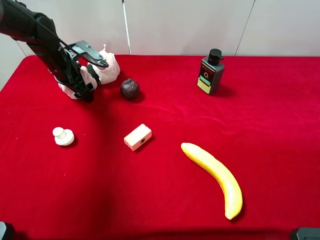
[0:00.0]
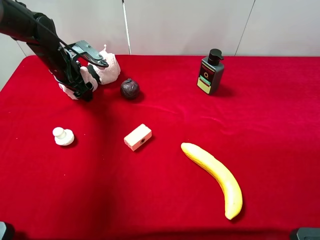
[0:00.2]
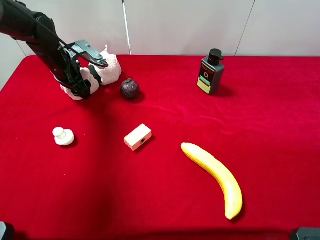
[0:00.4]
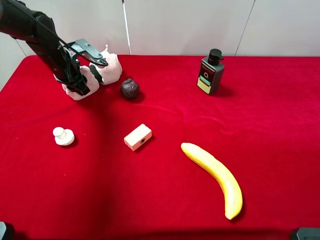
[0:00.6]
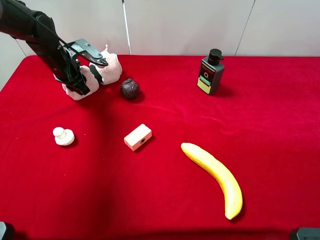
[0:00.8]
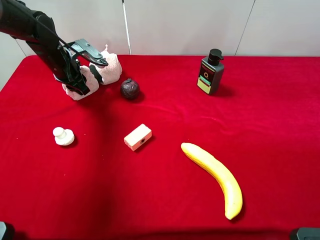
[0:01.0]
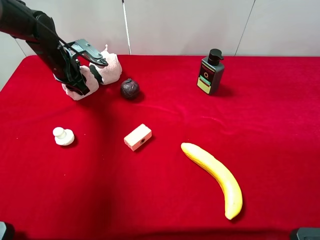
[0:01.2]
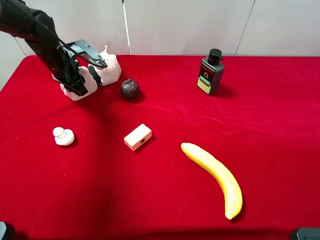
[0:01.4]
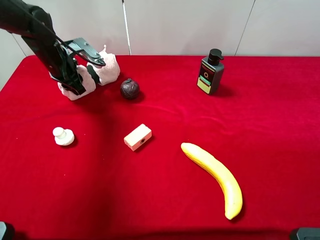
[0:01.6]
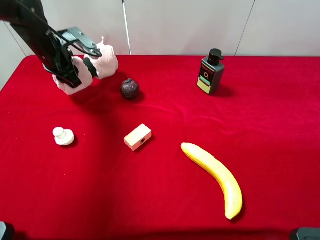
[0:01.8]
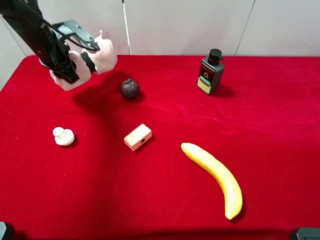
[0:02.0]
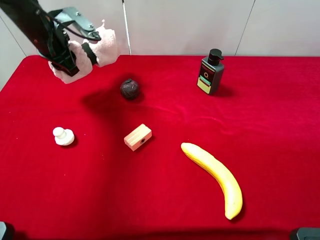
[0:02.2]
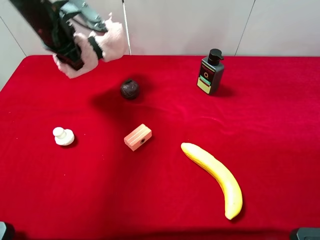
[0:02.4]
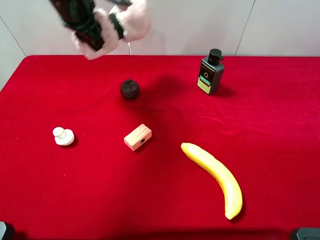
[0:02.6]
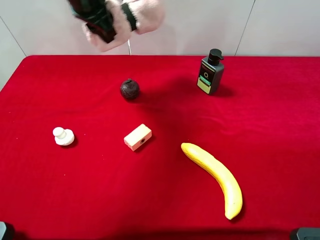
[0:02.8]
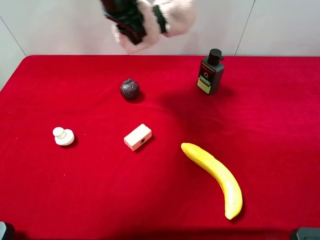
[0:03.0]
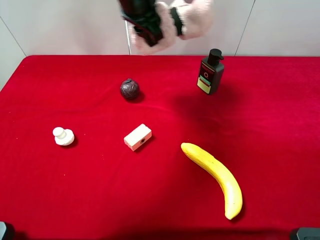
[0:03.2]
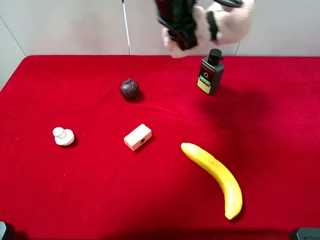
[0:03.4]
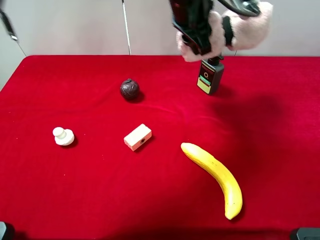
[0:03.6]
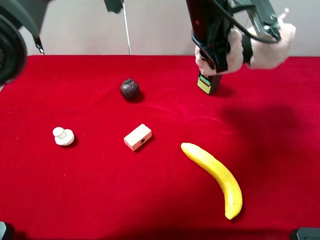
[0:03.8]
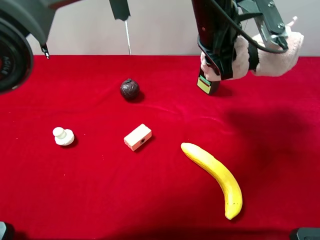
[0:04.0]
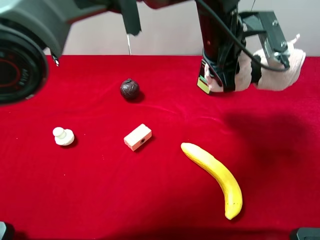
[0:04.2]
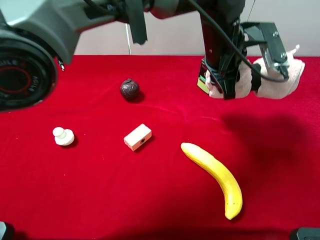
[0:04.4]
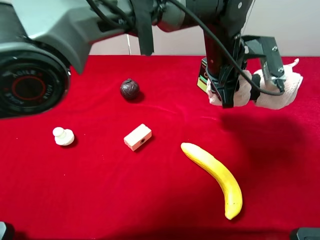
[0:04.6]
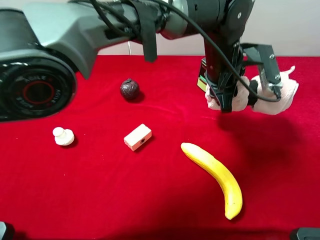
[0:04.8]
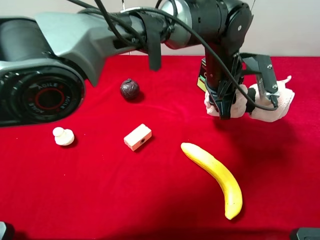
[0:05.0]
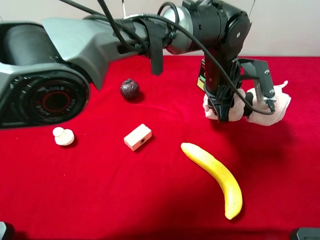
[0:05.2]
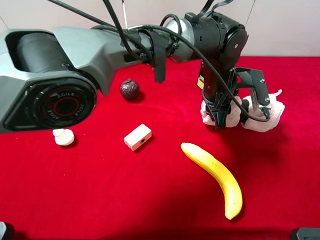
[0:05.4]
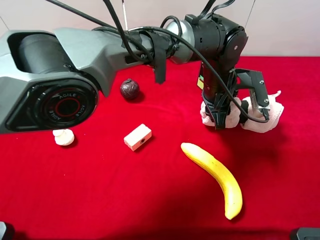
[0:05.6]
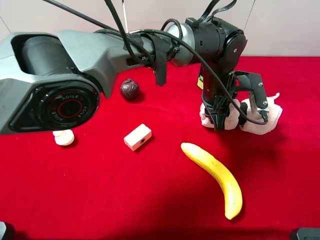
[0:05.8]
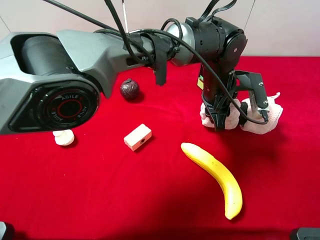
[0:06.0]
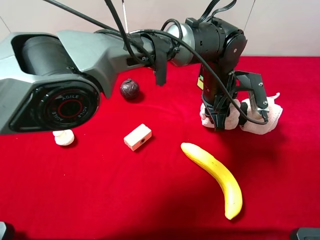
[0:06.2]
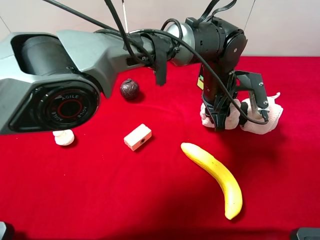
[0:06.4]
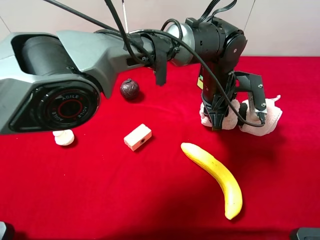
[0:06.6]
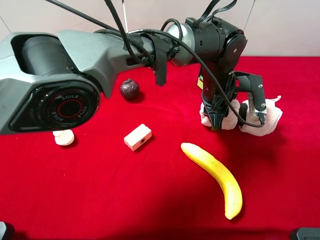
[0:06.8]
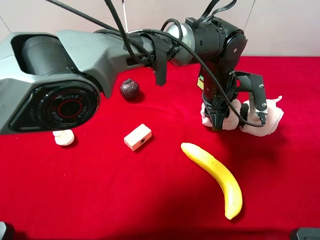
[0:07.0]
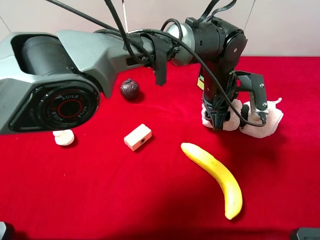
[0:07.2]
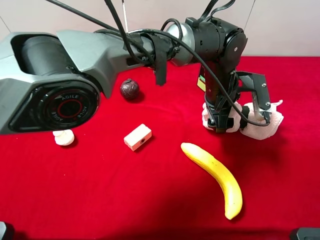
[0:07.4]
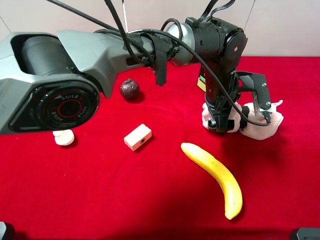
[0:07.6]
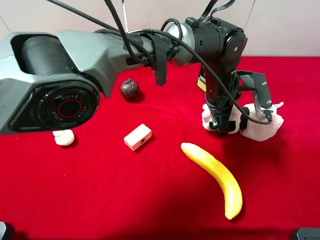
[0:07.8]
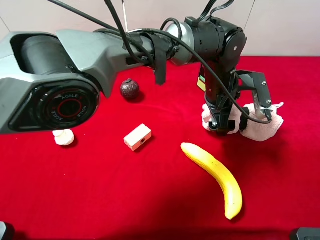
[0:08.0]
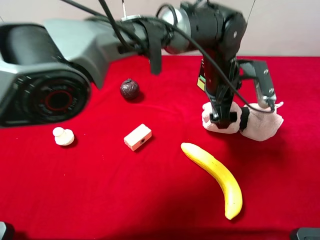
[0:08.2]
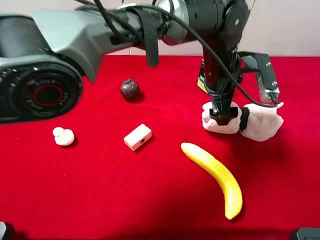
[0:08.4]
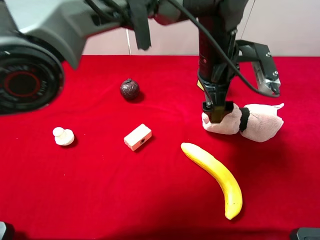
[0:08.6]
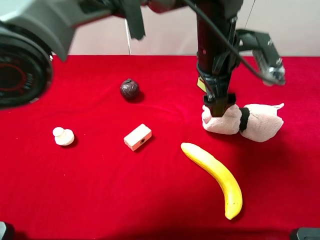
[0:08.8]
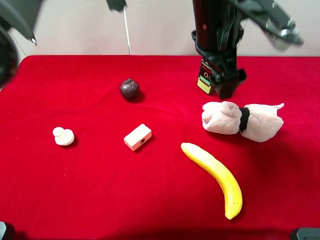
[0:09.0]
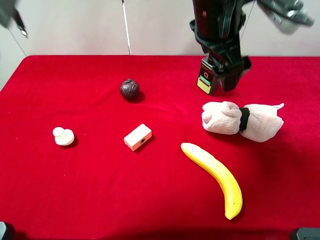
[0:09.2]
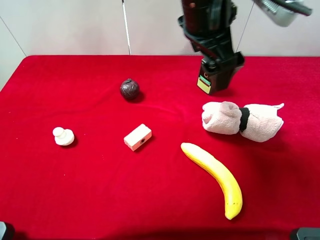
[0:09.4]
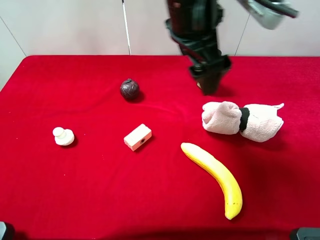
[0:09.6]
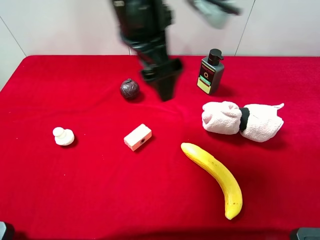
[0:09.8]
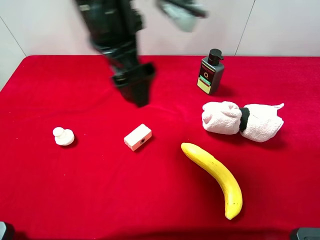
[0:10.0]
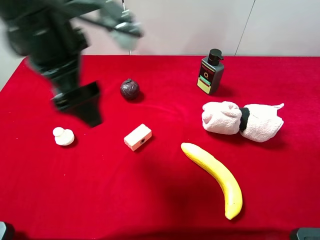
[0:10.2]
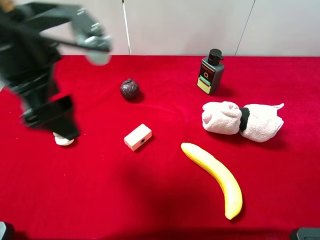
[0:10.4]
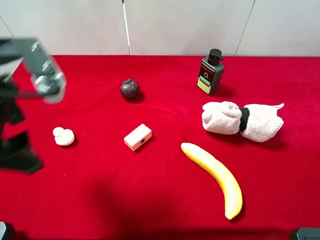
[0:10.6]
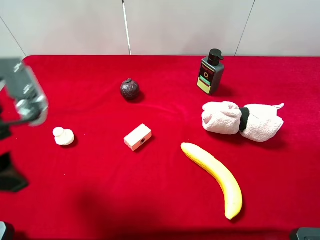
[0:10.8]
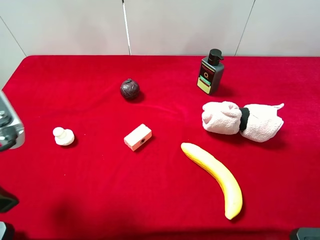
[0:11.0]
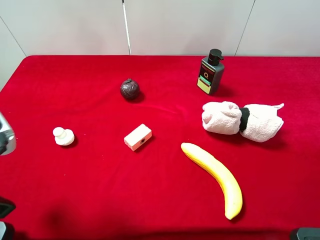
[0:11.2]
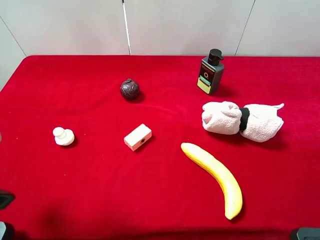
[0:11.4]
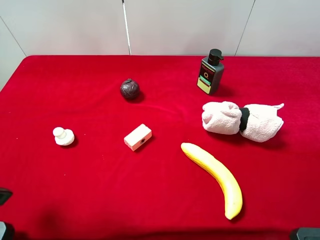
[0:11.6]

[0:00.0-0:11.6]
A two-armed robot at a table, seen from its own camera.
Task of the whole recording: the gripper move the object.
Step, 0:01.2 to 0:08.8: Place the pink towel on the table with the left gripper.
0:00.0 to 0:01.4: The left gripper closes.
0:01.4 to 0:02.8: The left gripper travels upward and to the right by approximately 20 cm.
0:02.8 to 0:04.4: The left gripper shifts approximately 25 cm to the right.
0:04.4 to 0:05.8: The left gripper shifts about 10 cm downward.
0:05.8 to 0:07.2: The left gripper opens its fingers.
0:07.2 to 0:08.8: The left gripper shifts some 10 cm upward, and opens up.
0:08.8 to 0:10.2: The left gripper goes about 25 cm to the left and backward.
0:10.2 to 0:11.6: The left gripper is displaced to the left and backward by some 20 cm.

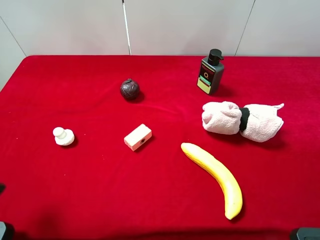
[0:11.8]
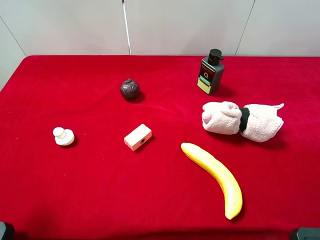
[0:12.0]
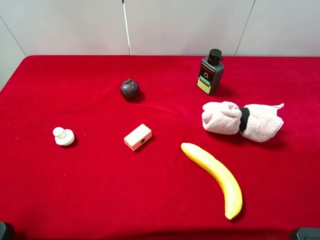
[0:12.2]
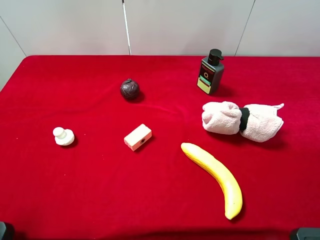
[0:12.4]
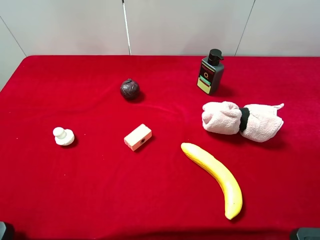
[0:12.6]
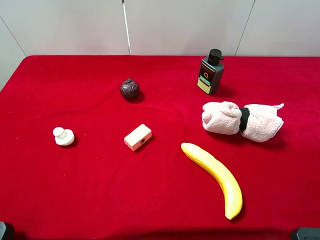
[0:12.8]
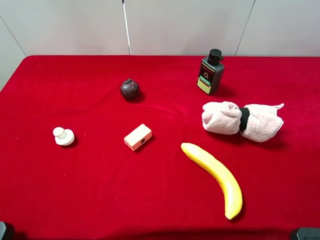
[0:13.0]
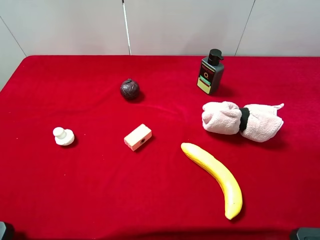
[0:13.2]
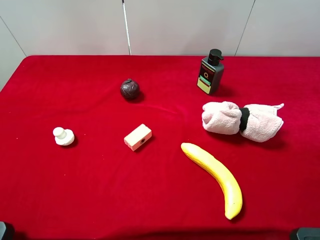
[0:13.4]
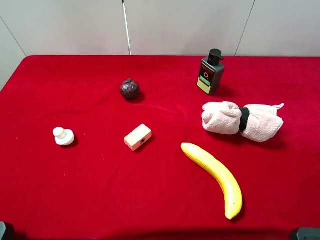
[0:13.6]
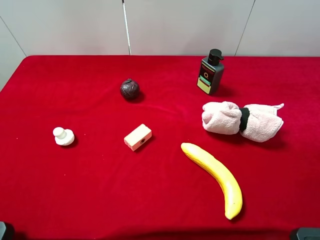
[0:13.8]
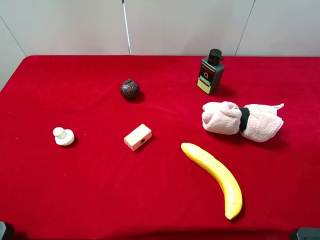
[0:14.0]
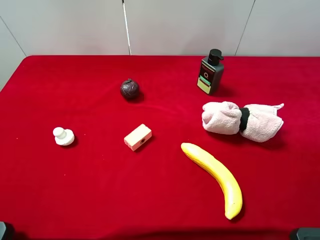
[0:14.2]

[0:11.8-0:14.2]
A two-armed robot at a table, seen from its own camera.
Task of the whole recording: the gripper move the object.
0:13.0 to 0:14.2: Both grippers stay about where they are.
